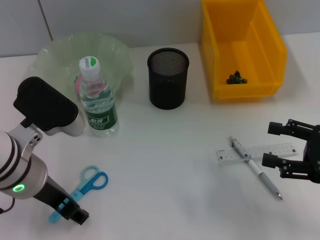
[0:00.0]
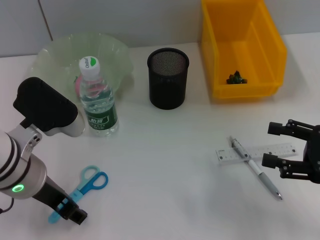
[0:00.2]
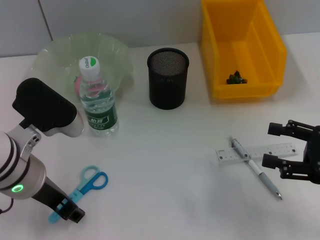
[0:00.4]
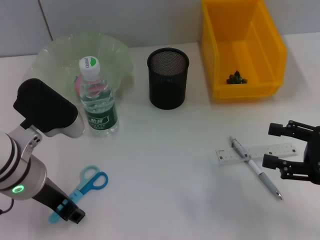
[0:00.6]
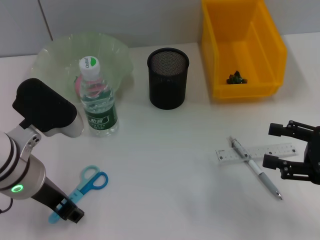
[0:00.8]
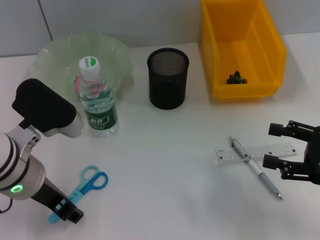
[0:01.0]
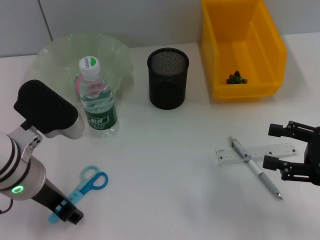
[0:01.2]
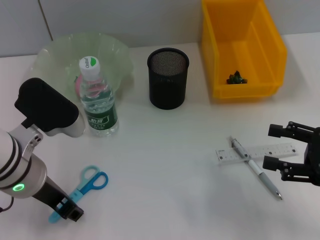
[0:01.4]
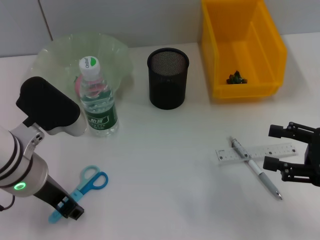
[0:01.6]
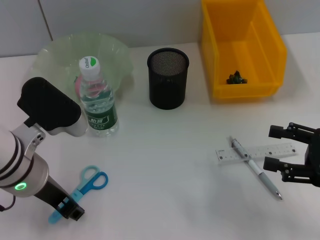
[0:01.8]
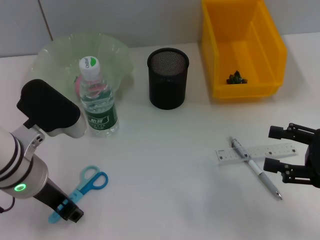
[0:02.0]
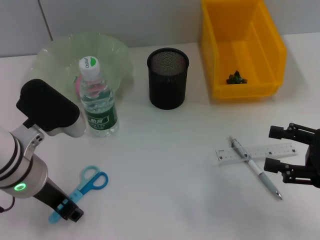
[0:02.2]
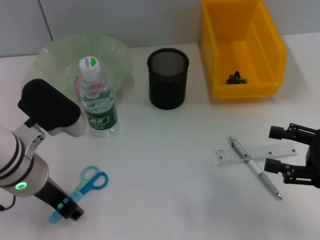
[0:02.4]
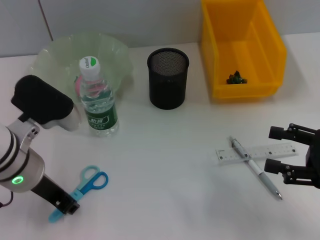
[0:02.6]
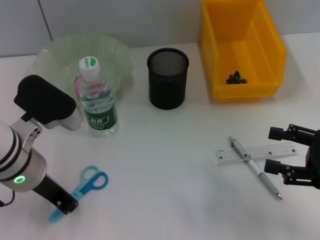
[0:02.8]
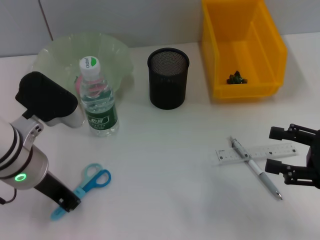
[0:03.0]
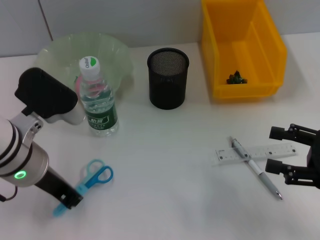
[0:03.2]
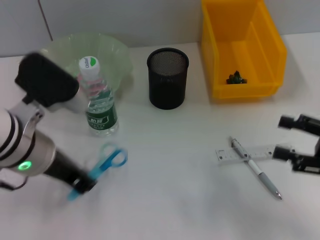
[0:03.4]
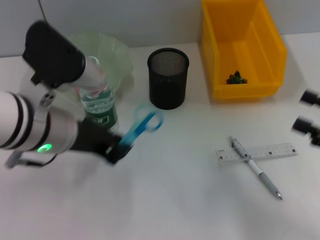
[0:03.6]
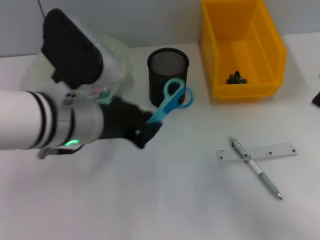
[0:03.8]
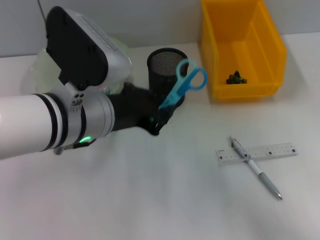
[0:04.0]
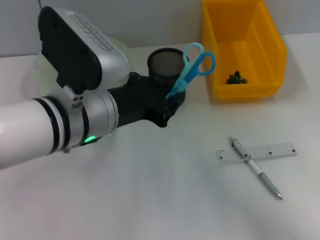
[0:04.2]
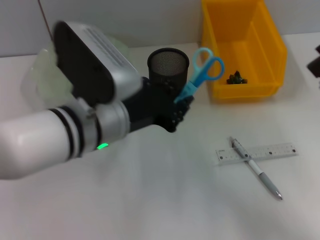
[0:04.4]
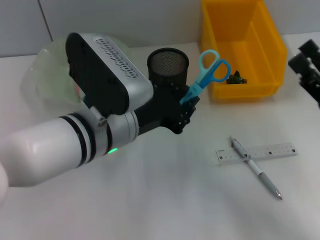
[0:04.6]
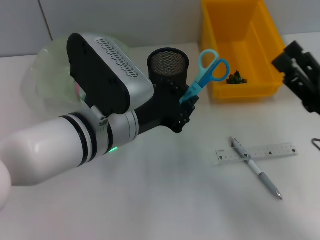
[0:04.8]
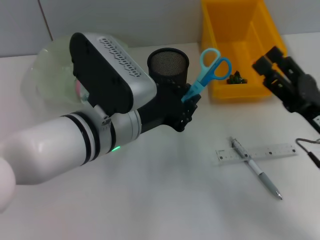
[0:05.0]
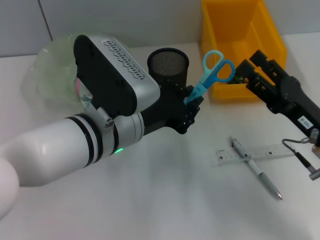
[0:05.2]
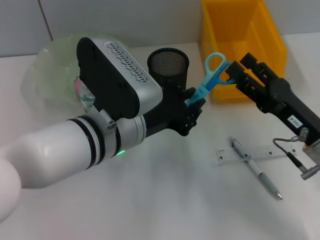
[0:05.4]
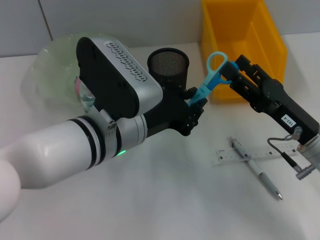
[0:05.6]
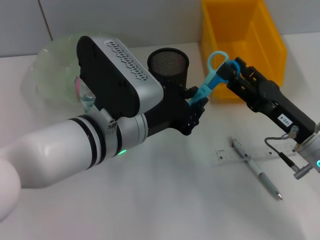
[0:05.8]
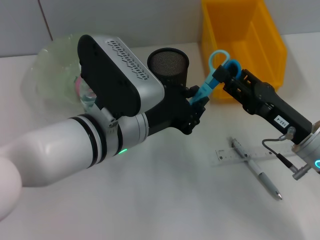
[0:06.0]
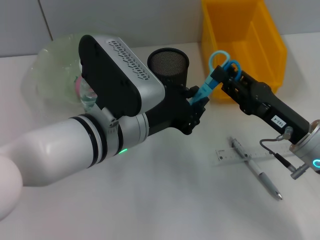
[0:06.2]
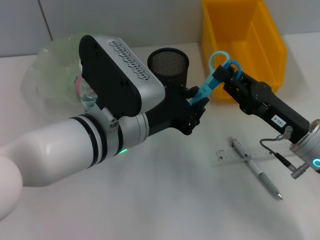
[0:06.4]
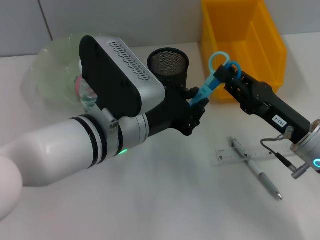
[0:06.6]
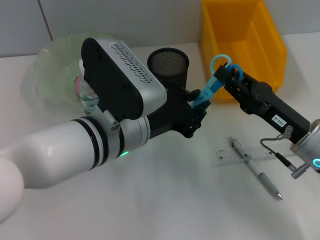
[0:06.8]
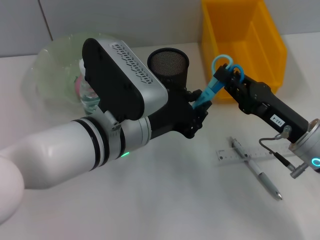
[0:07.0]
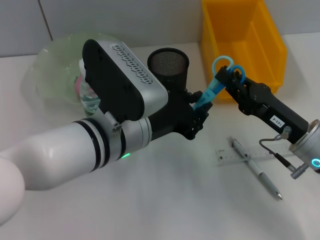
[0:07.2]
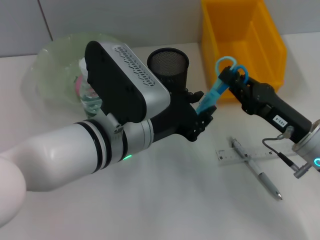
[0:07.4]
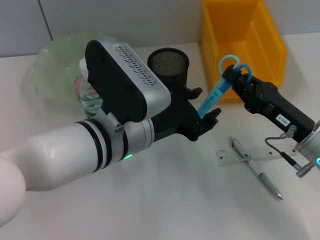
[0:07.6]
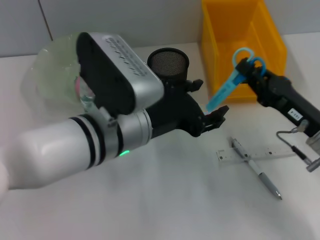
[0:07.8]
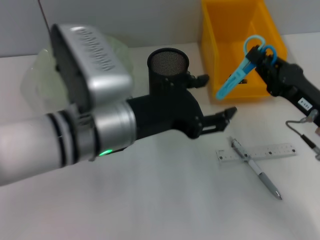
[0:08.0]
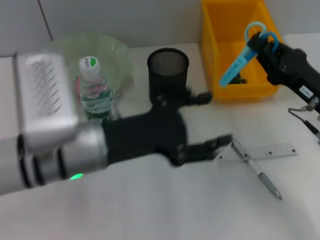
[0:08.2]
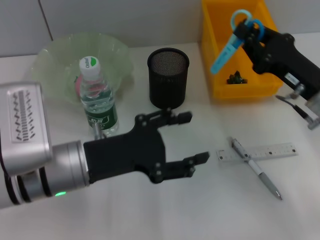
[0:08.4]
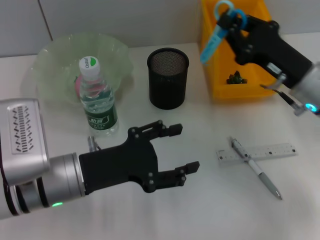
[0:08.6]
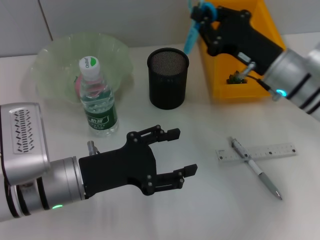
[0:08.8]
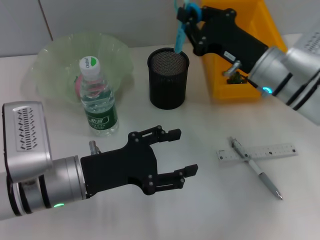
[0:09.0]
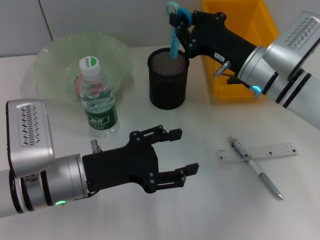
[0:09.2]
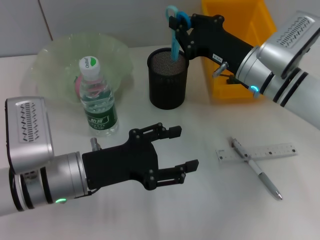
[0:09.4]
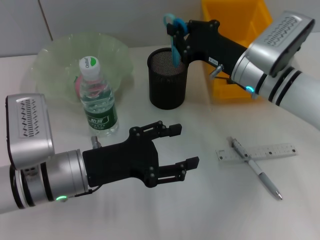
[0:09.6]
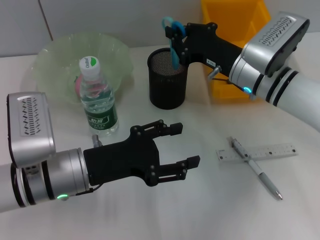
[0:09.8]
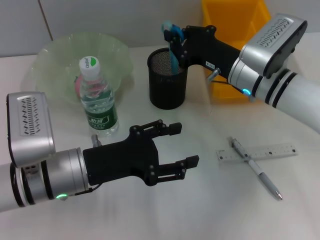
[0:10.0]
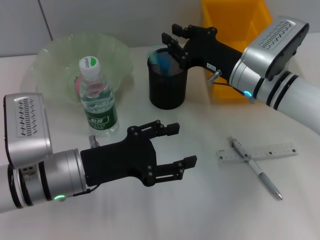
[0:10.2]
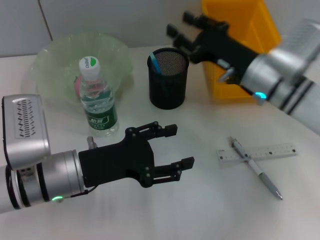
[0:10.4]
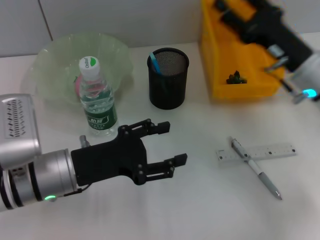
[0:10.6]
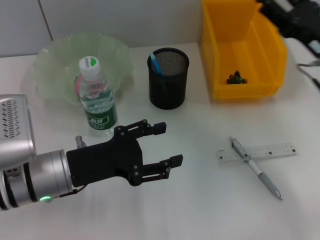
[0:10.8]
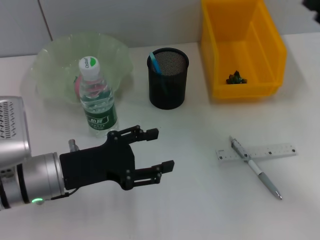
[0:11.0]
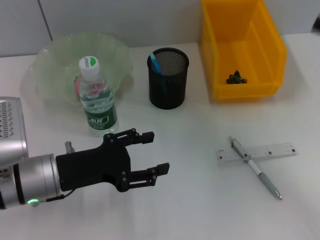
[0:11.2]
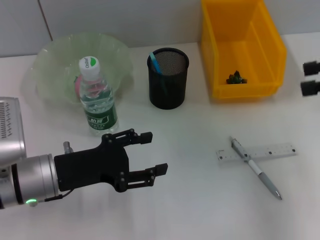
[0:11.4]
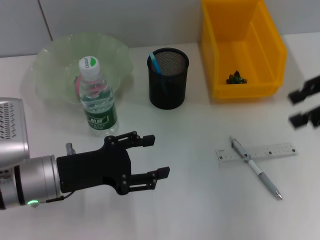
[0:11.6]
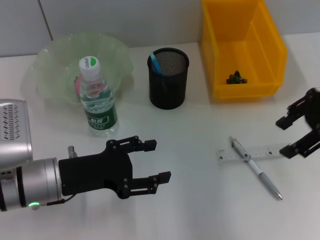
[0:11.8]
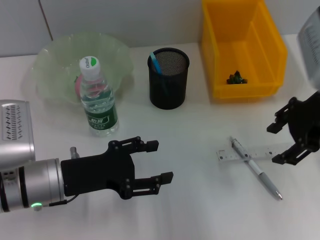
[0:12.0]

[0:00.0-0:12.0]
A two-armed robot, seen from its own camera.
Step, 0:00.0 to 0:02.8: Grab the blue scissors with the left hand.
Step, 0:03.2 to 0:07.6: Pass the blue scissors from the left hand to the right hand.
Step, 0:07.8 to 0:10.2: Place the blue utility knife into the pen holder with the right hand.
0:00.0 to 0:01.6: Neither gripper changes place.
0:01.6 to 0:03.0: The left gripper closes up.
0:03.0 to 0:04.4: The left gripper moves to the right, some 10 cm.
0:04.4 to 0:06.0: The right gripper travels to the left and forward by roughly 10 cm.
0:06.0 to 0:07.6: The right gripper closes up.
0:07.6 to 0:09.0: The right gripper shifts approximately 15 cm forward, to the left and upward. Meanwhile the left gripper moves to the left and downward, approximately 10 cm, and opens up.
0:09.0 to 0:10.4: The grippers stay close to where they were, moving slightly.
0:10.4 to 0:12.0: The right gripper travels upward and to the right by some 15 cm, and opens.

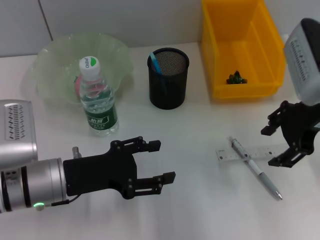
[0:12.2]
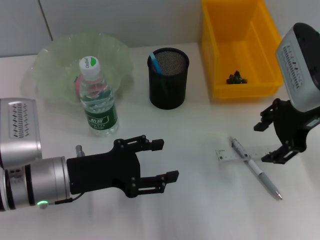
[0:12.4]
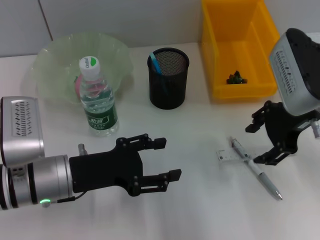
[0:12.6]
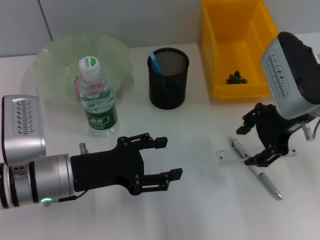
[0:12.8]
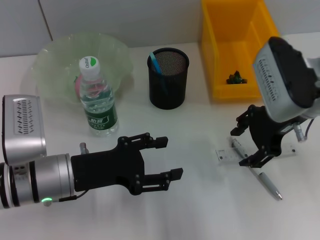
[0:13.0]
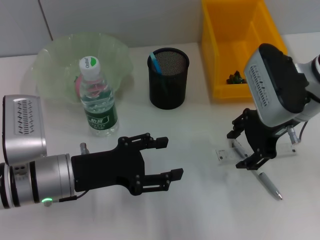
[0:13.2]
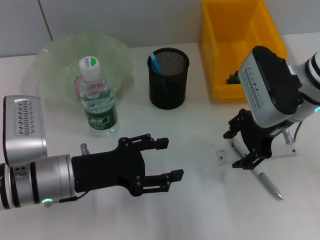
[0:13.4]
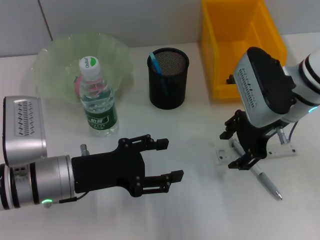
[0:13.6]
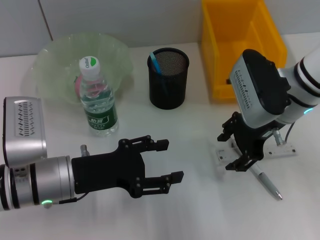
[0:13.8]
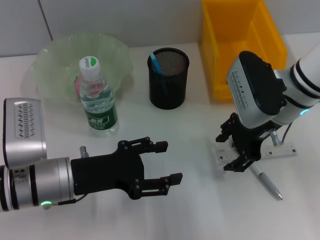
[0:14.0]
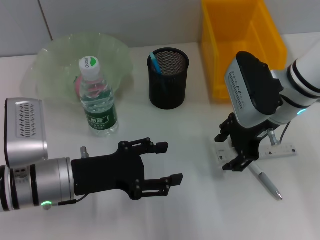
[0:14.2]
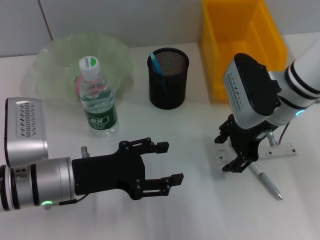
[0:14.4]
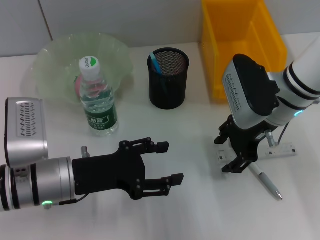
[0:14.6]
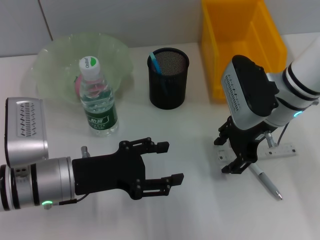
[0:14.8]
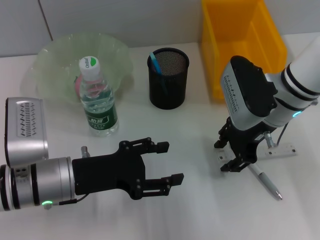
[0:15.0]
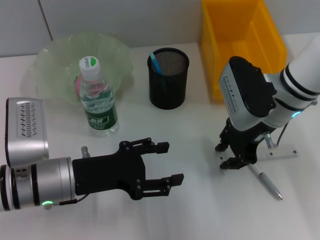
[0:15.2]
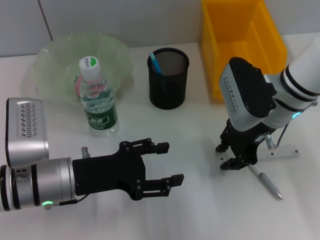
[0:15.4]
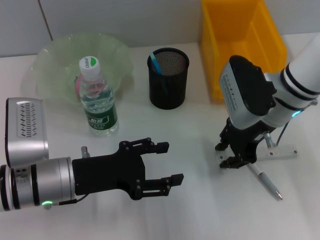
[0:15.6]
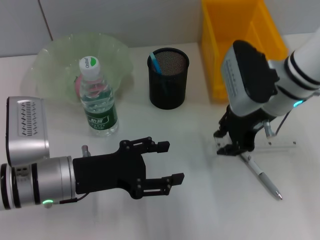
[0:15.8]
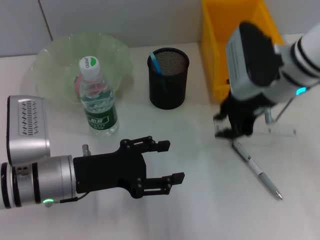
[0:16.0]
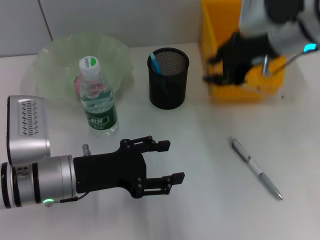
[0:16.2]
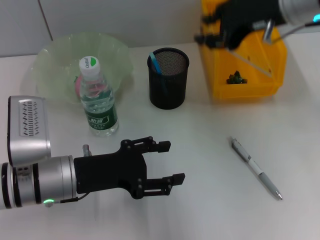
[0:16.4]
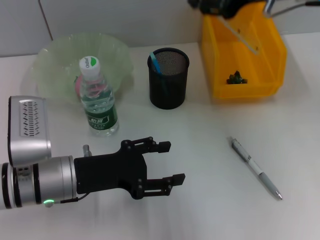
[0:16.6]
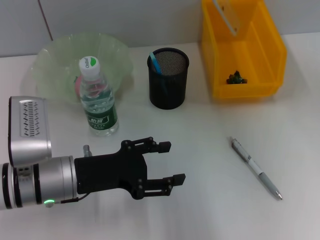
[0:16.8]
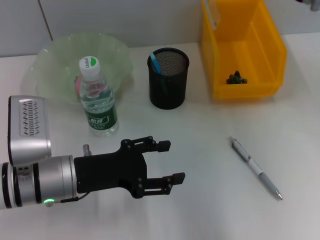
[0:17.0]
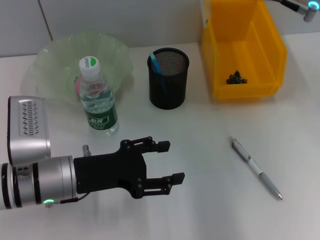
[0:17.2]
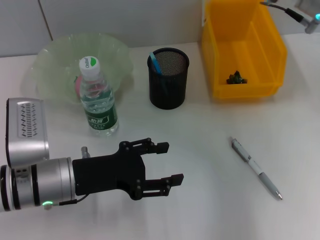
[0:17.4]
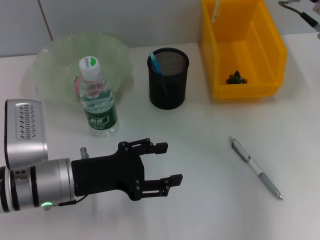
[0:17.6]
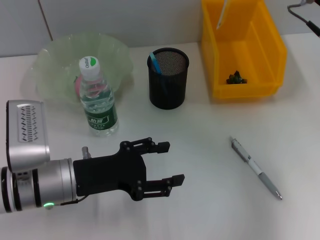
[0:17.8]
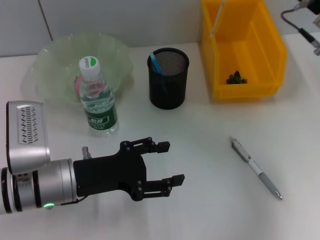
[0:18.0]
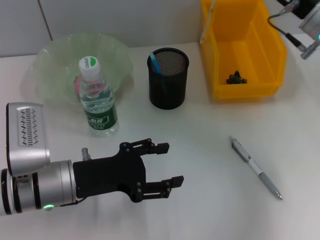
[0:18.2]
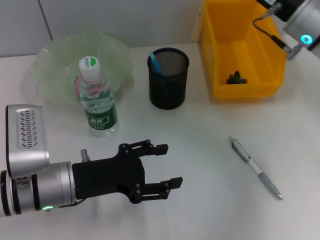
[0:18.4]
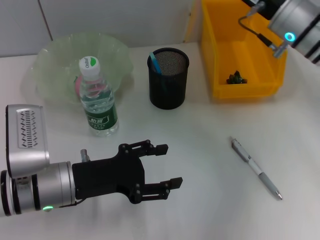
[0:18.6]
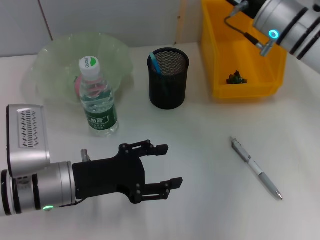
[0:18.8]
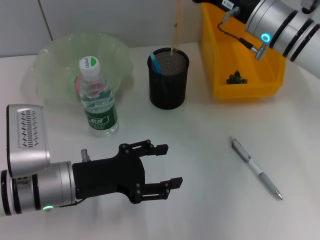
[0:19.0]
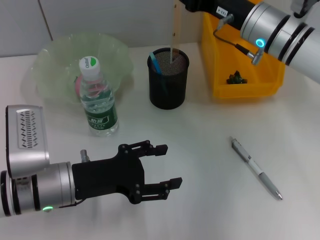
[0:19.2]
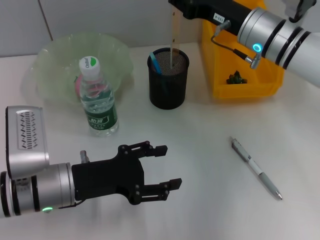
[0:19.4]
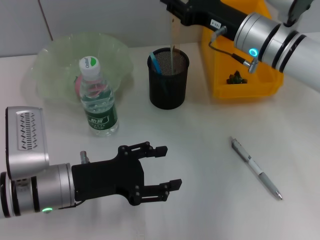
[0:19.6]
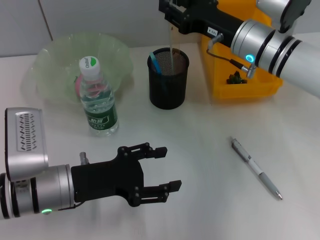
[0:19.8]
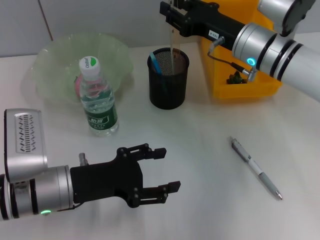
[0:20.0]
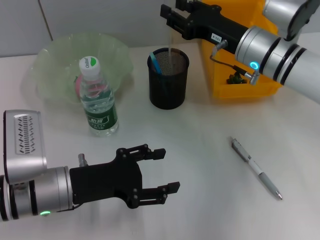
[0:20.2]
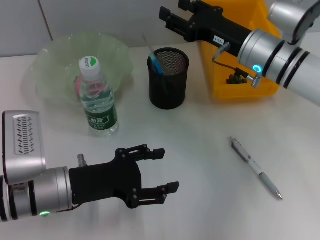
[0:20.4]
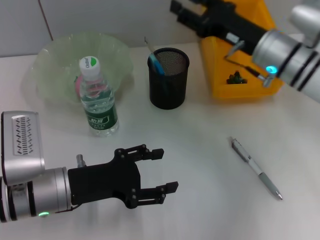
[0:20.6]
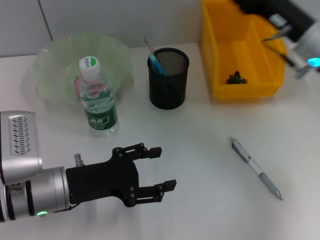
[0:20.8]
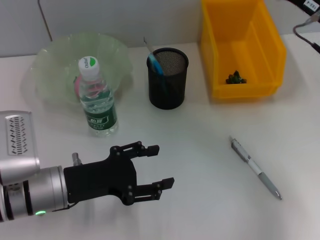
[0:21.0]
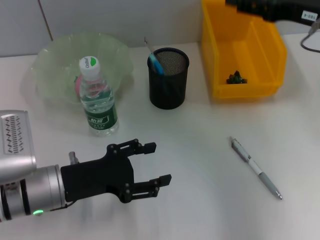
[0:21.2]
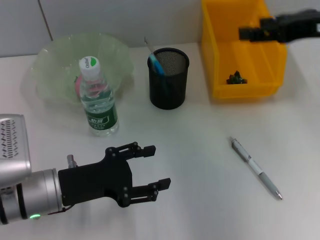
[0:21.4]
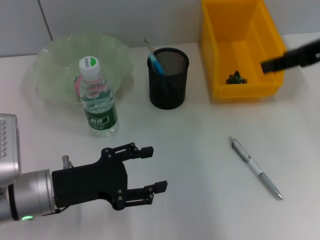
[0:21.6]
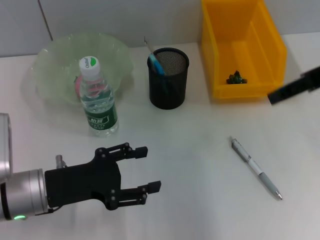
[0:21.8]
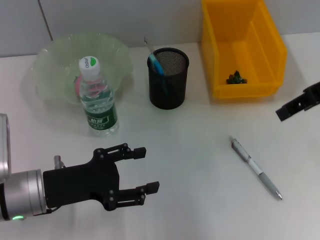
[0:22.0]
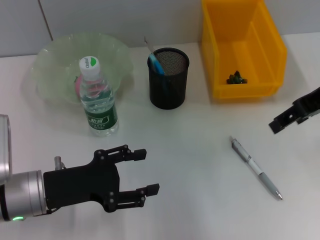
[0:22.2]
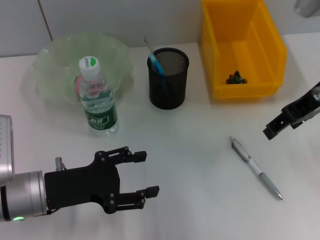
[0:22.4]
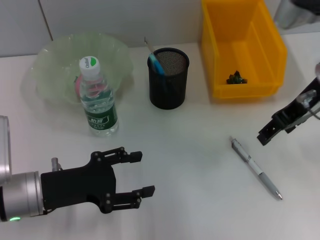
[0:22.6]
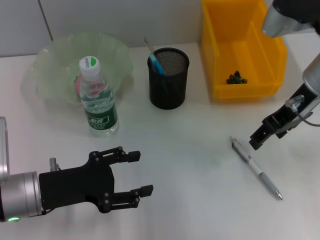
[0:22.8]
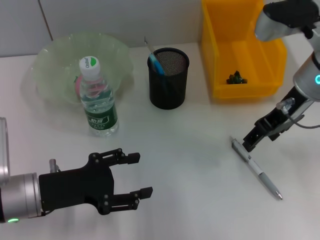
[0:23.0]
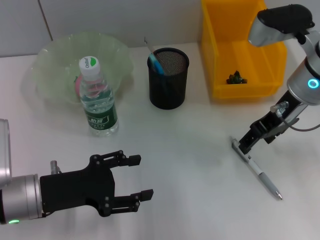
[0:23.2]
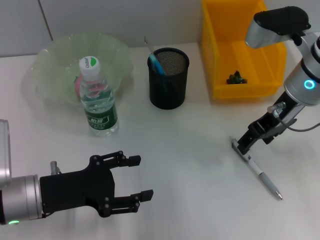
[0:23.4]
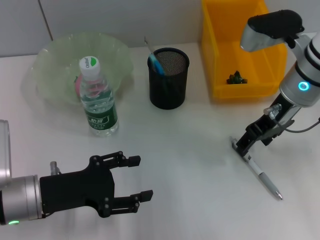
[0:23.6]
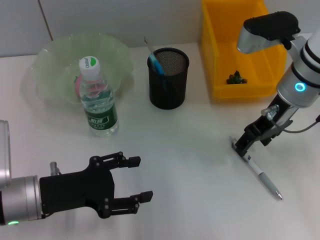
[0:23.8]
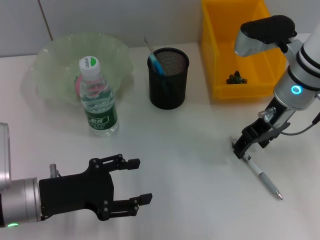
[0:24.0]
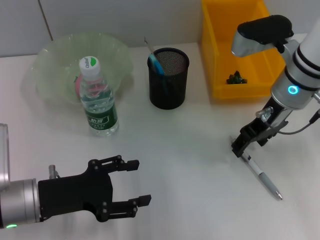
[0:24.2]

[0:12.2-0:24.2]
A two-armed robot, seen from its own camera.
Step, 0:12.2 to 0:15.6: Grab the ruler with the right hand.
Step, 0:15.8 to 0:20.2: Place the ruler into the pen holder with the right hand.
0:12.2 to 0:13.8: The right gripper heads downward, covering approximately 5 cm.
0:13.8 to 0:15.2: There are only small adjustments of the grippers.
0:15.2 to 0:16.6: The right gripper heads upward, covering some 15 cm.
0:16.6 to 0:18.2: The right gripper shifts approximately 10 cm downward.
0:18.2 to 0:19.8: The right gripper goes approximately 5 cm to the left.
0:19.8 to 0:21.2: The right gripper heads to the right, upward and backward, covering roughly 15 cm, and opens.
0:22.6 to 0:24.2: The right gripper shifts about 5 cm downward.
